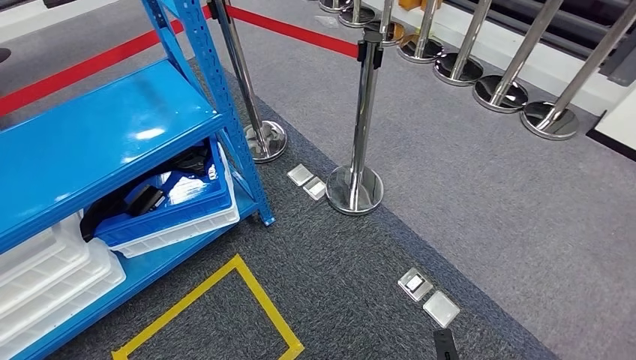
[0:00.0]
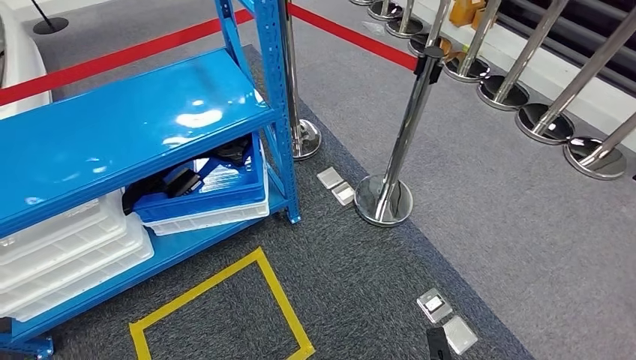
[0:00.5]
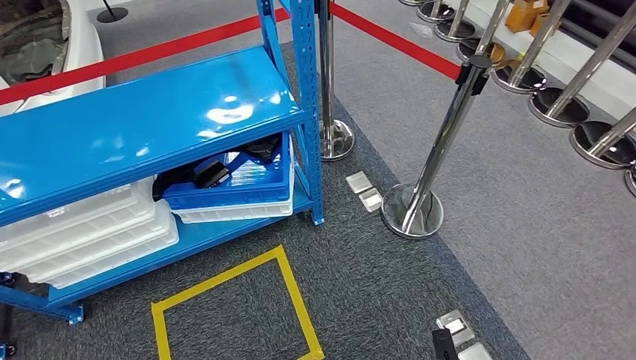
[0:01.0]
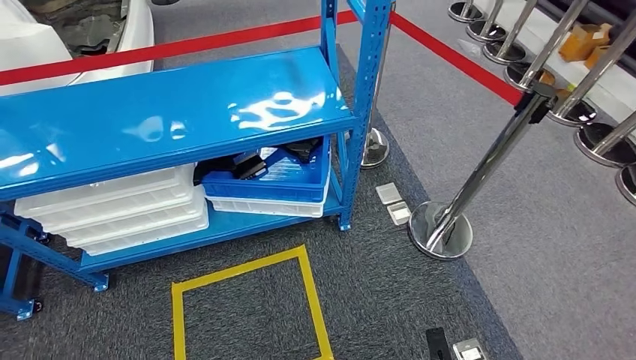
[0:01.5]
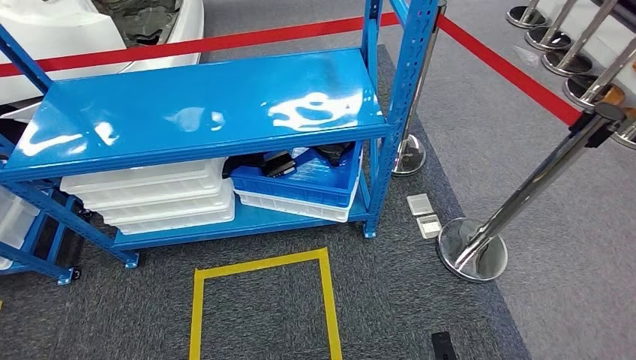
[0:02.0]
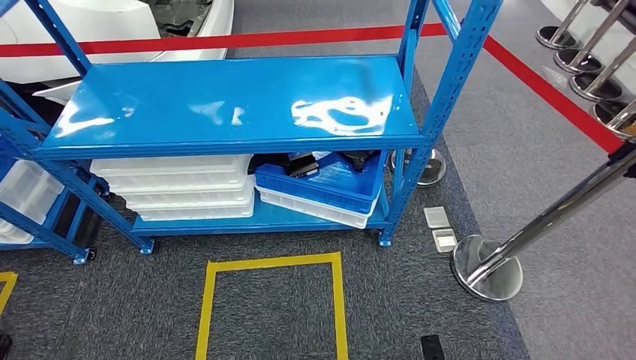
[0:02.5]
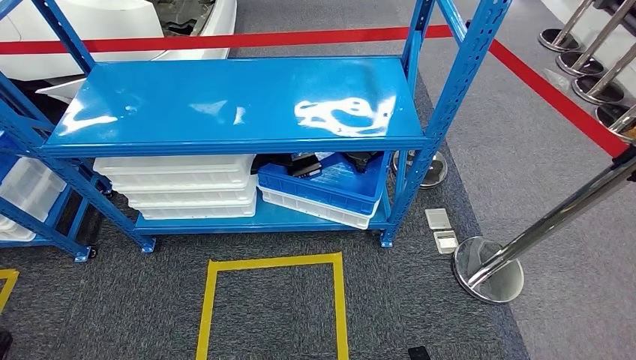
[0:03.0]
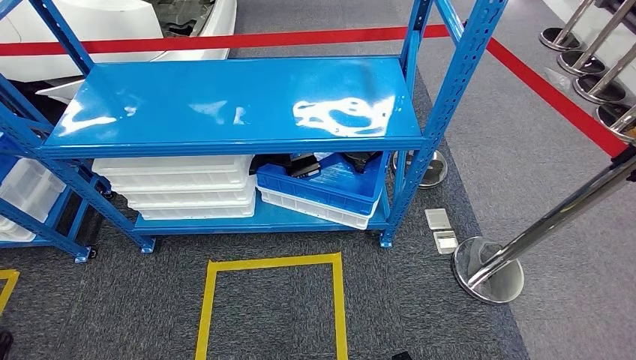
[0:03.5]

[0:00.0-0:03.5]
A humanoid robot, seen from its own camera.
Step, 0:00.0 to 0:03.5: Move to the initial position of the shelf.
